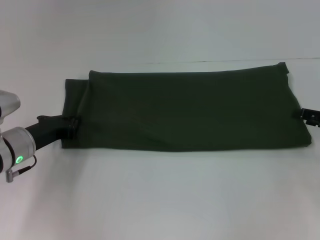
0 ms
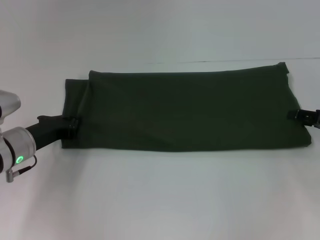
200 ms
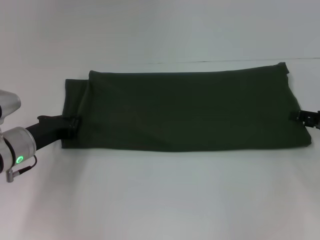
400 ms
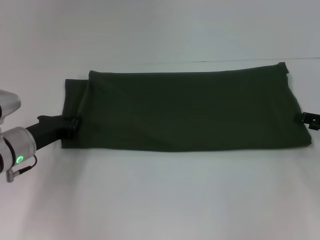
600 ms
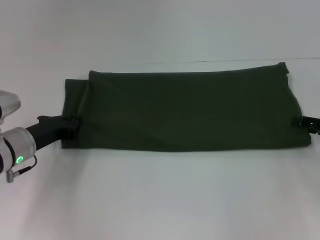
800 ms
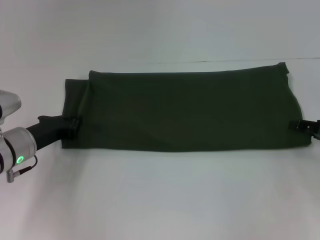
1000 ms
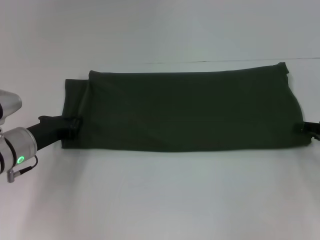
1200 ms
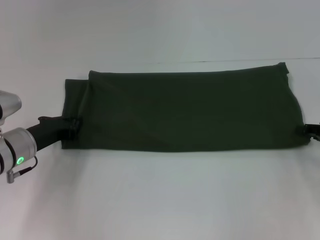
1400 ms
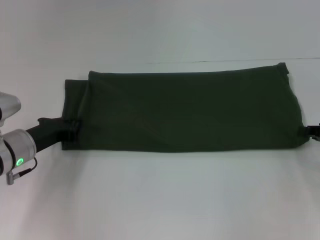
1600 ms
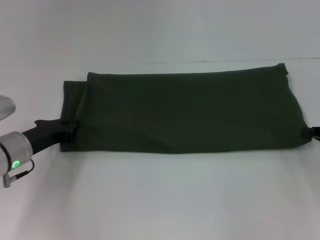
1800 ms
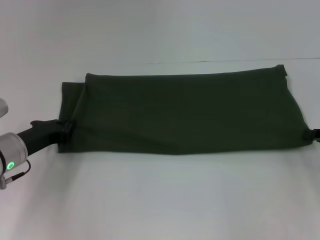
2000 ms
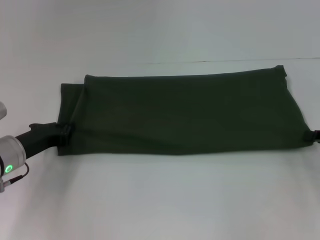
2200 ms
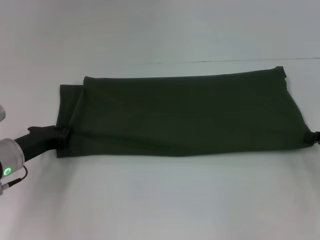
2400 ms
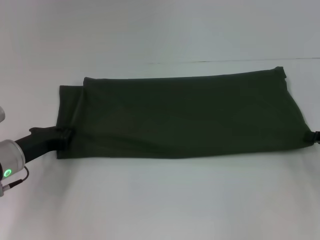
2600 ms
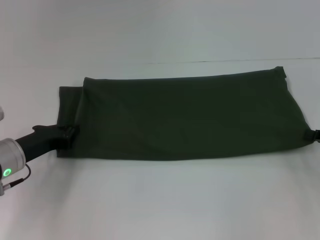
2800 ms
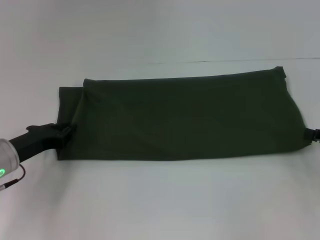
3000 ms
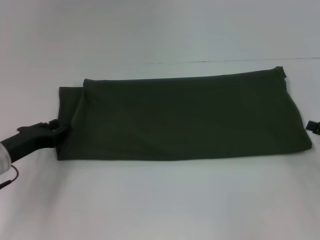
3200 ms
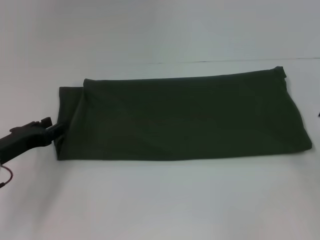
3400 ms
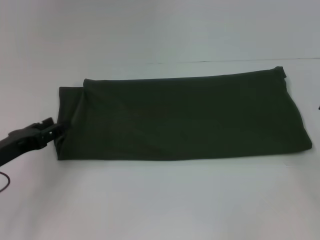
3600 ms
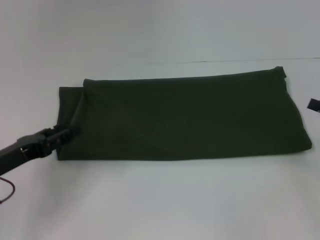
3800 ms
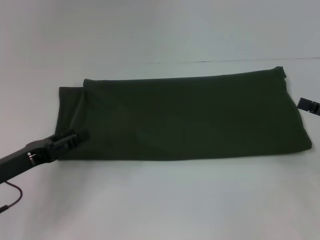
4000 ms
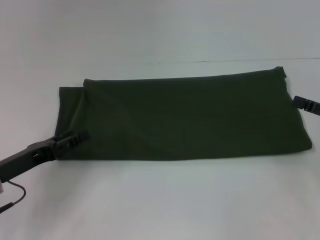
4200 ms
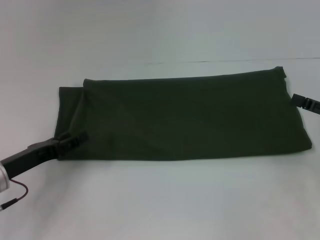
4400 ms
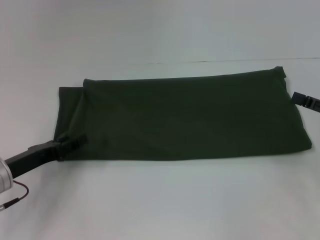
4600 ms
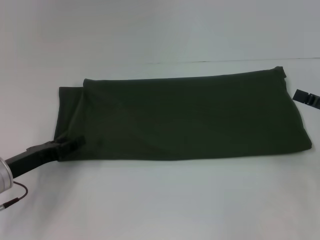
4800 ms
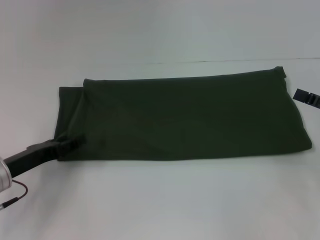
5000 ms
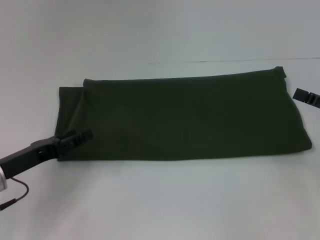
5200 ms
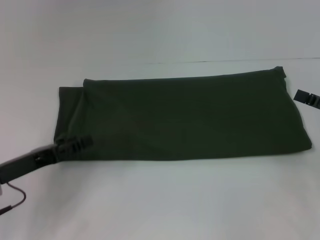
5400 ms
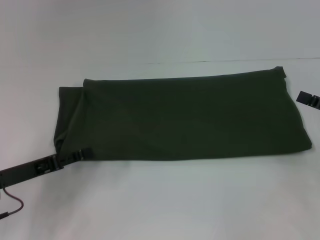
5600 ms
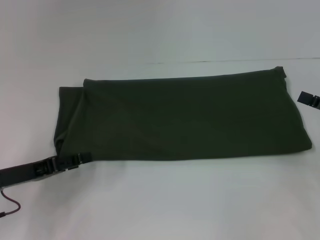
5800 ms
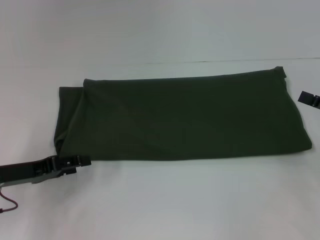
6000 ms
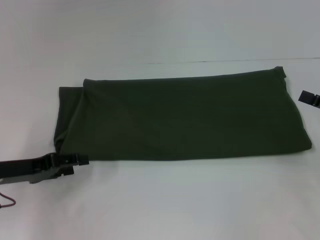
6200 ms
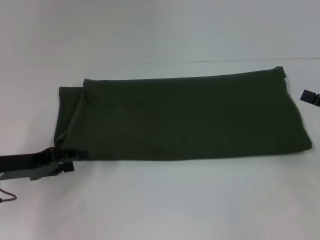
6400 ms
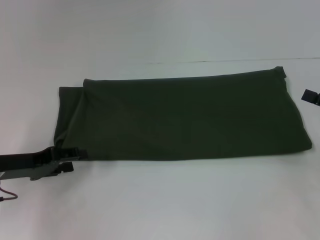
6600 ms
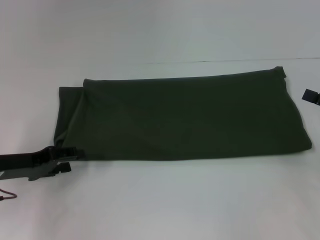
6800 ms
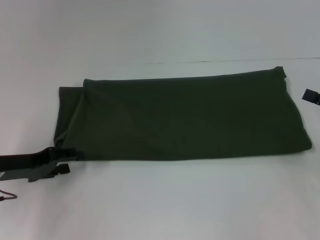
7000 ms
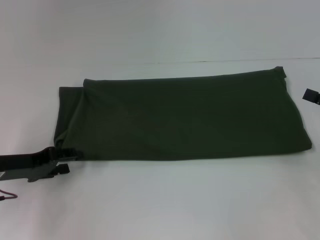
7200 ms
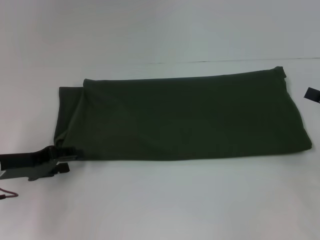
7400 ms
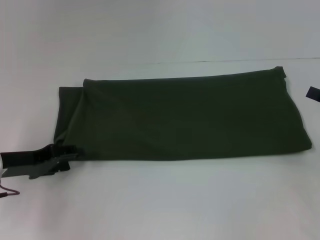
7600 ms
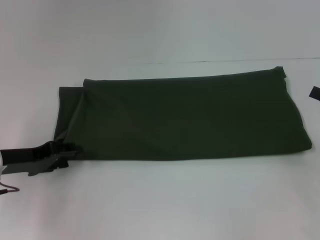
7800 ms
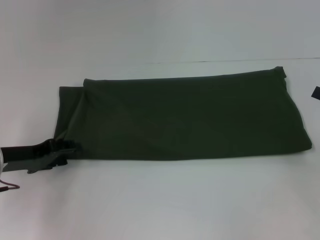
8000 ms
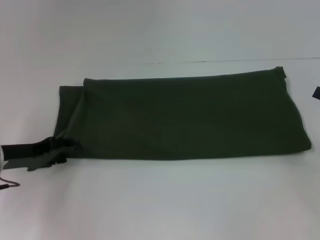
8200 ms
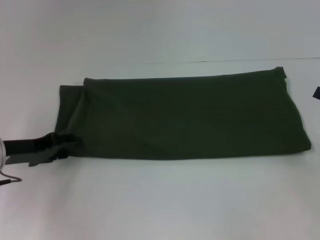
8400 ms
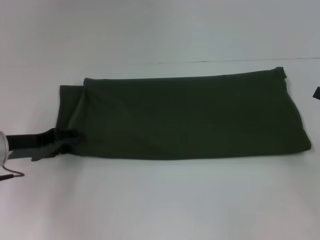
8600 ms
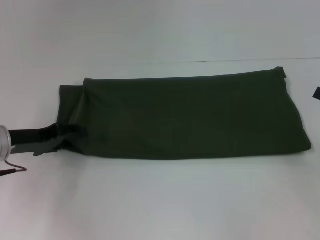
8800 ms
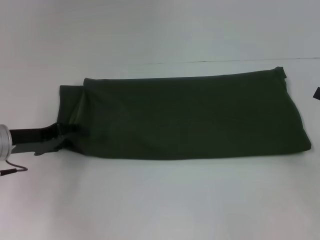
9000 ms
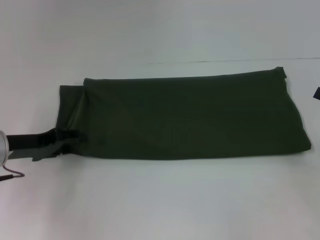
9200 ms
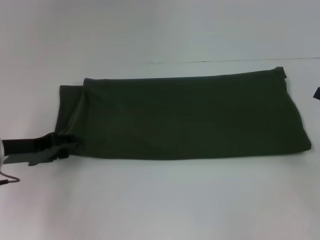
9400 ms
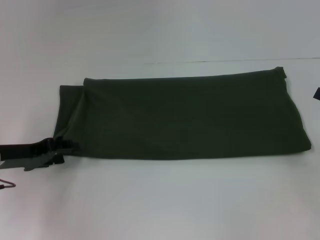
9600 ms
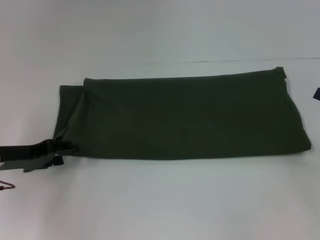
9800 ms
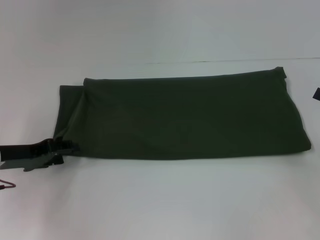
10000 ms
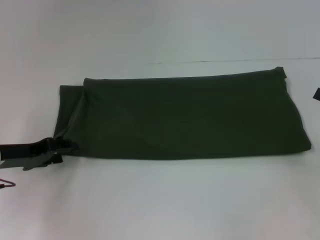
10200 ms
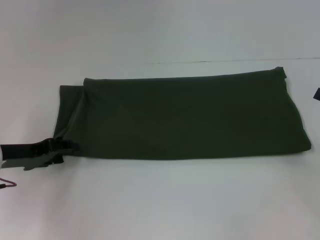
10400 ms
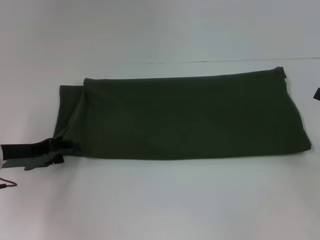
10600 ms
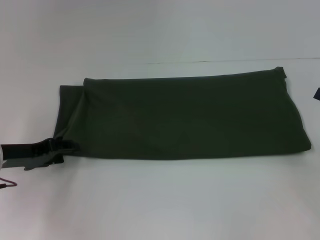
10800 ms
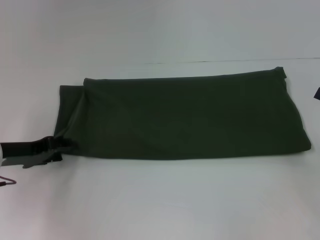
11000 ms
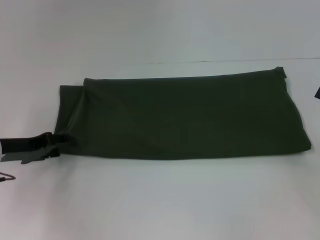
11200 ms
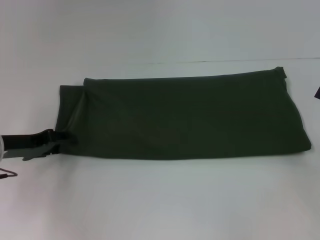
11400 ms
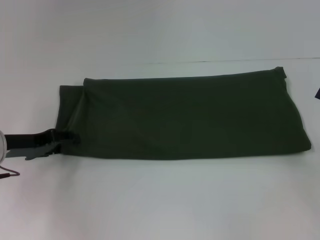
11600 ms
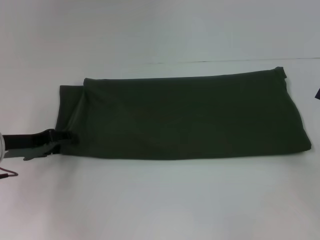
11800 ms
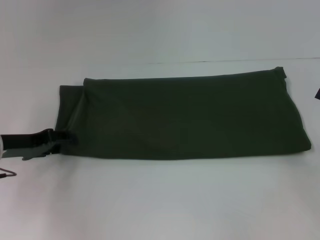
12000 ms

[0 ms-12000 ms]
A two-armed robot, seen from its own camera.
0 ms to 1600 ms: The right gripper closes up.
1600 ms to 3000 ms: The grippers stay close to where they were, moving slightly.
3000 ms to 4400 ms: The left gripper opens its fingers; the right gripper opens.
6000 ms to 12000 ms: There are only small adjustments of the grippers.

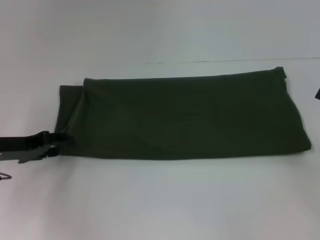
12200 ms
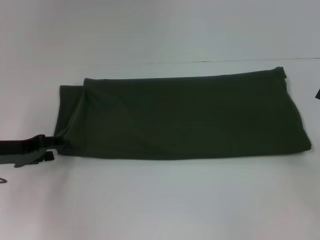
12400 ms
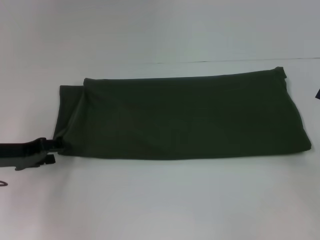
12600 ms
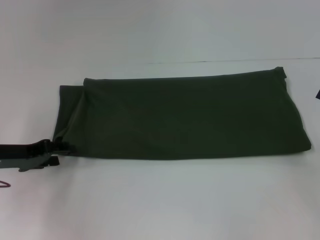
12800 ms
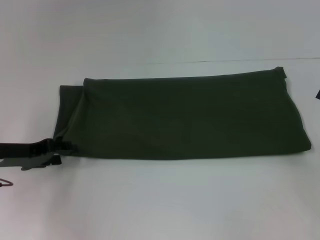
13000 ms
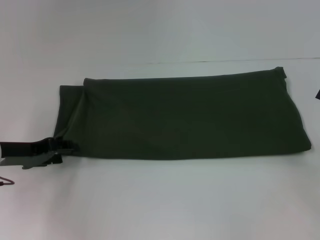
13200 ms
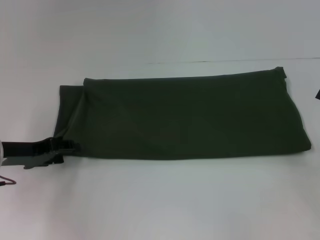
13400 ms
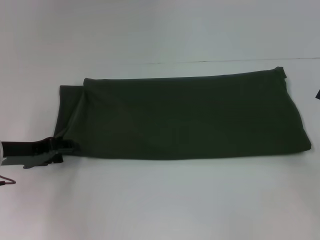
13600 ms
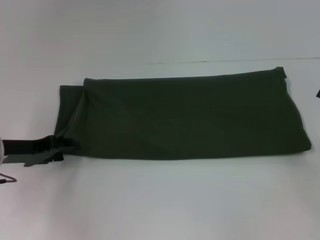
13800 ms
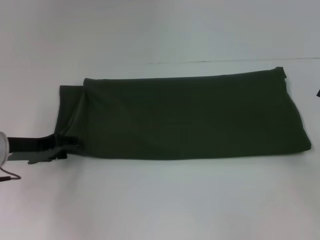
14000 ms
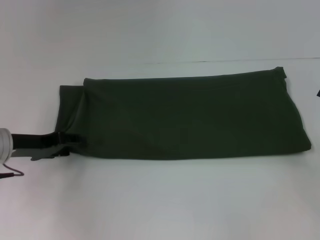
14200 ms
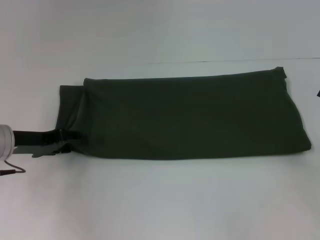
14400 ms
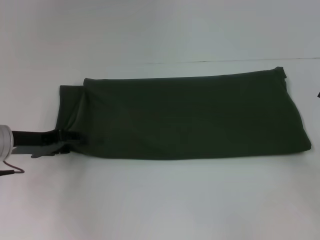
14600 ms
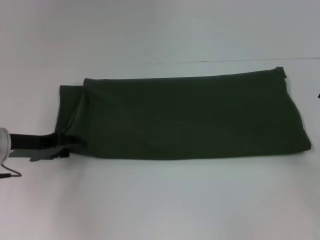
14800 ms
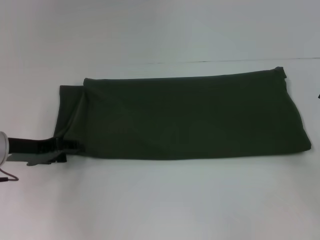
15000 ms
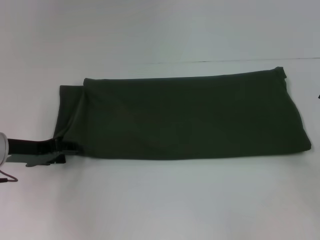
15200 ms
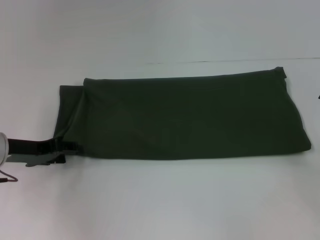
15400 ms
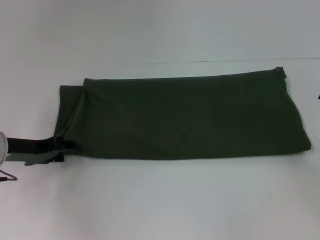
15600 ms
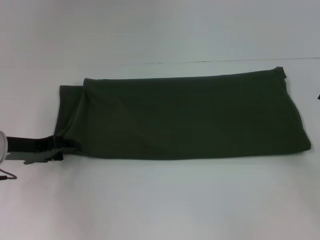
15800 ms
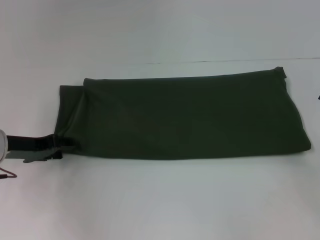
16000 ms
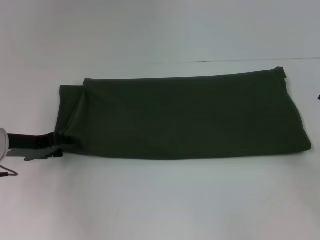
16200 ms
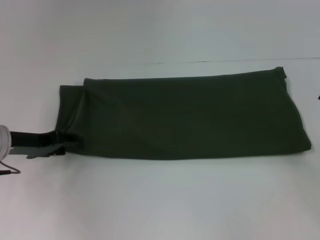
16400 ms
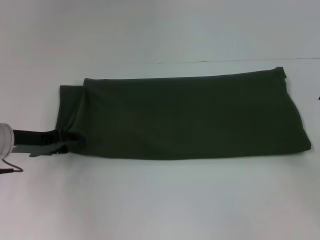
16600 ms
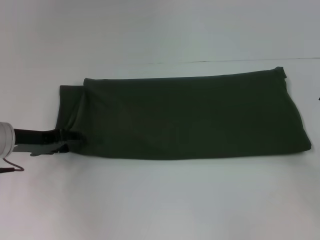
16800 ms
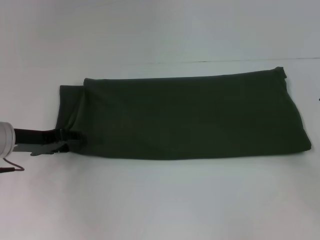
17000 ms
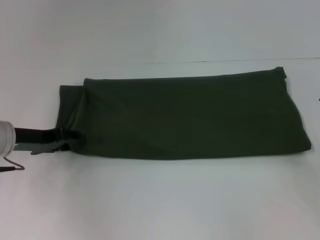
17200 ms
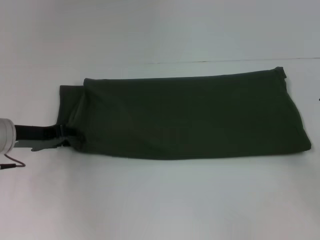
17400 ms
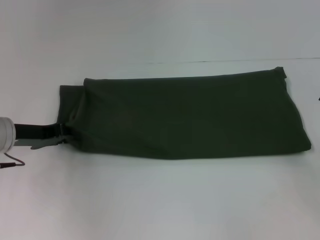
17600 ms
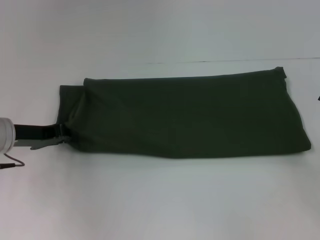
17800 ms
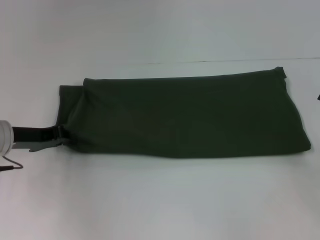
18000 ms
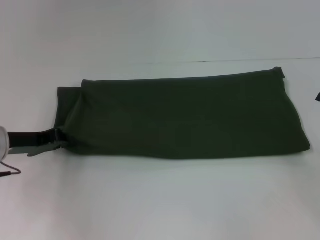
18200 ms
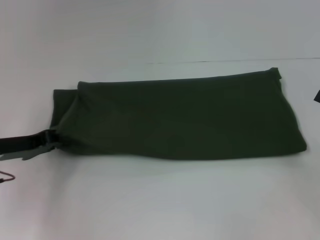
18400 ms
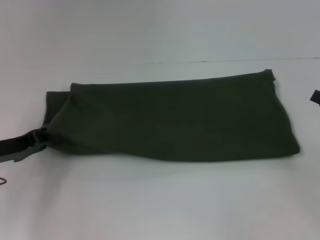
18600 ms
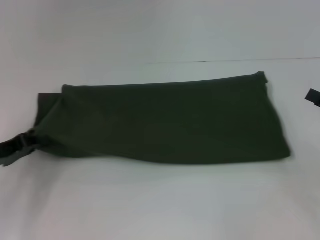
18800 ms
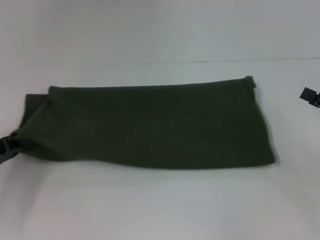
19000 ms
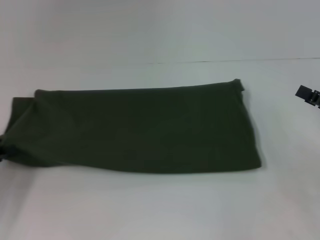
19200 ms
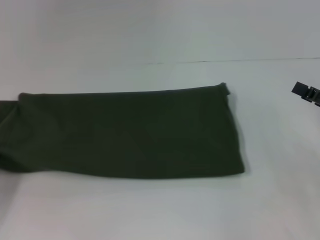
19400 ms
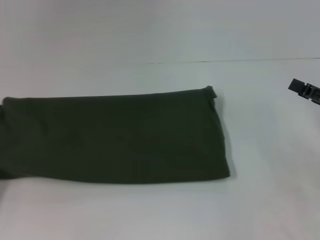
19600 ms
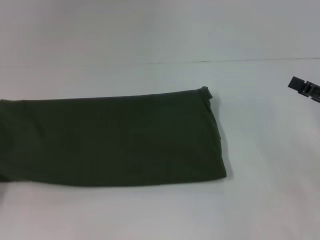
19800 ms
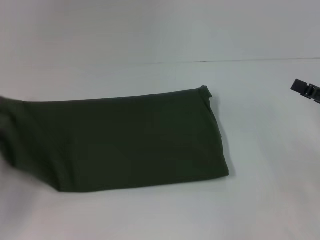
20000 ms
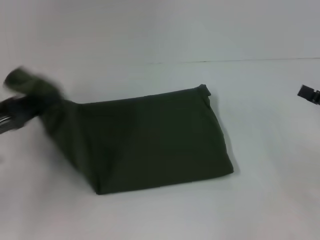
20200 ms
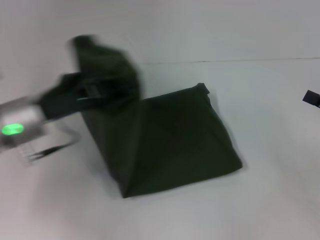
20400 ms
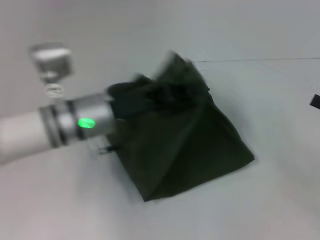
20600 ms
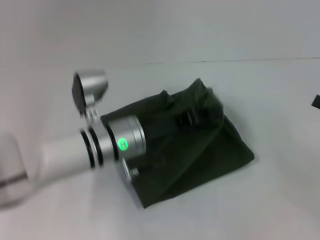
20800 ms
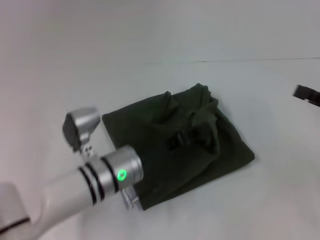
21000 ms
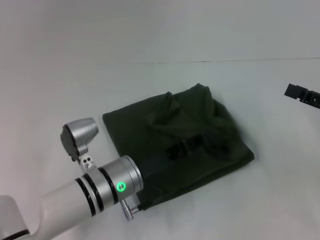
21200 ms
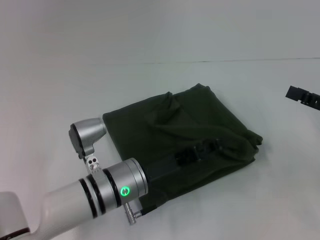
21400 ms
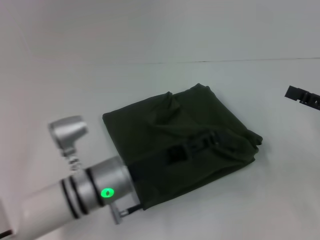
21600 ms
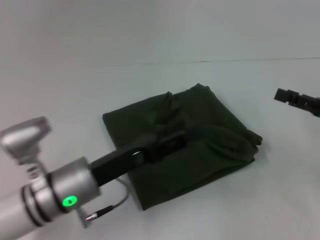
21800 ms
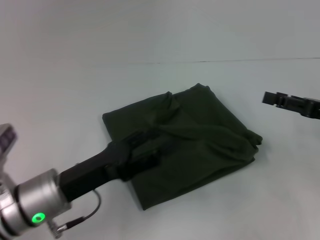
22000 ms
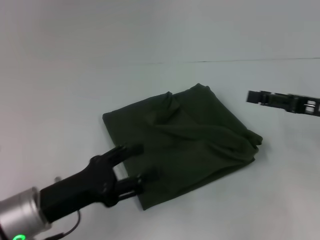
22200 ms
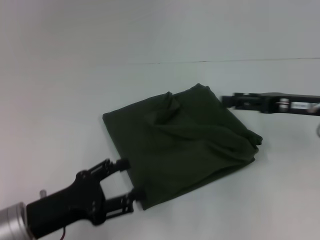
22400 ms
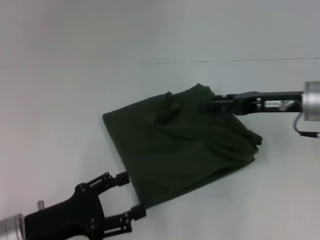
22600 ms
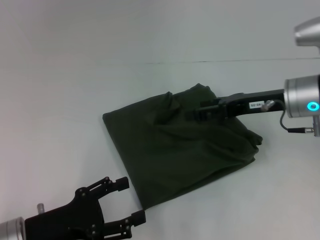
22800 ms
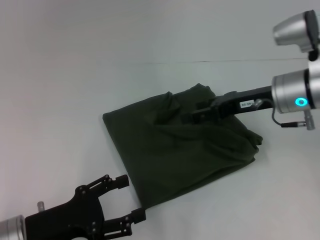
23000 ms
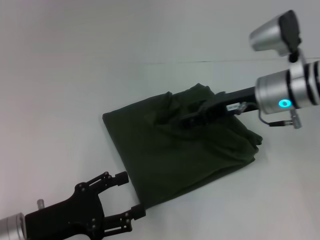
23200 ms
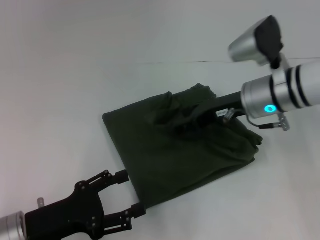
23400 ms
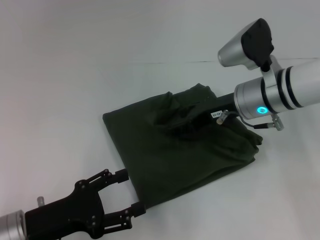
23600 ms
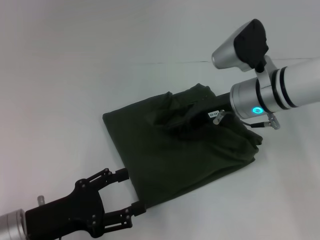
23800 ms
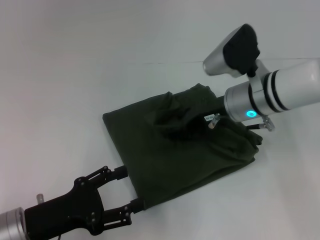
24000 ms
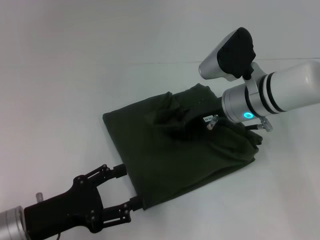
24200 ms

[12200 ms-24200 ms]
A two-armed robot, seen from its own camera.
Step, 12200 ms to 21200 ms: Fold the clothes with your left hand.
12200 ms to 13800 ms: Neither gripper changes place.
15200 ms to 16600 ms: The two grippers keep their place.
16600 ms to 18200 ms: The left gripper closes up.
18200 ms to 19800 ms: The left gripper shifts roughly 15 cm to the left and backward.
19800 ms to 21200 ms: The left gripper goes roughly 30 cm to the right.
21200 ms to 22600 ms: The right gripper is displaced to the left and forward by some 15 cm, while the left gripper moves to the left and backward, about 15 cm, and opens.
22600 ms to 24200 ms: The right gripper travels to the left by about 10 cm.
